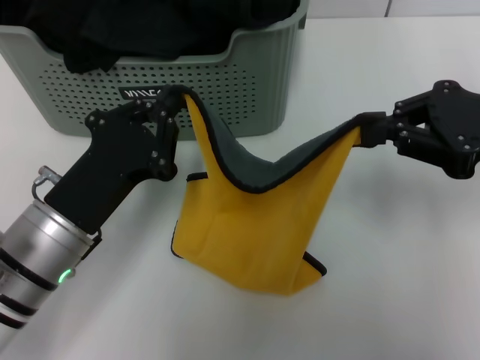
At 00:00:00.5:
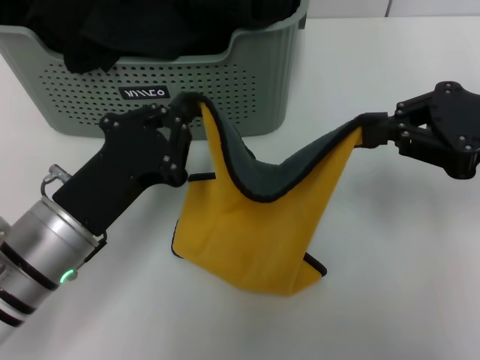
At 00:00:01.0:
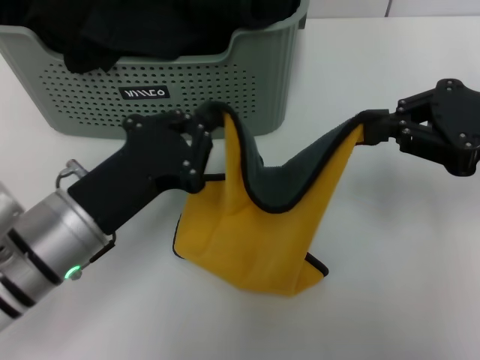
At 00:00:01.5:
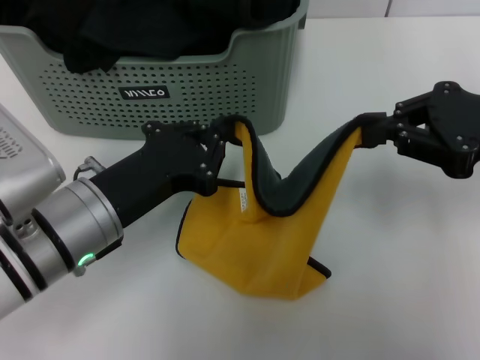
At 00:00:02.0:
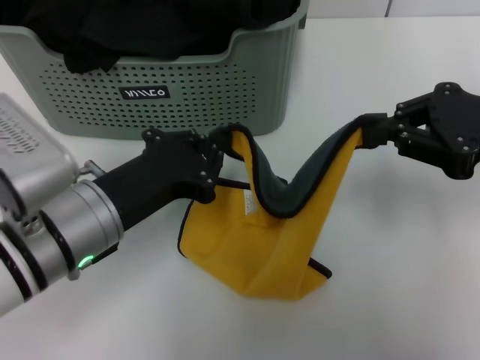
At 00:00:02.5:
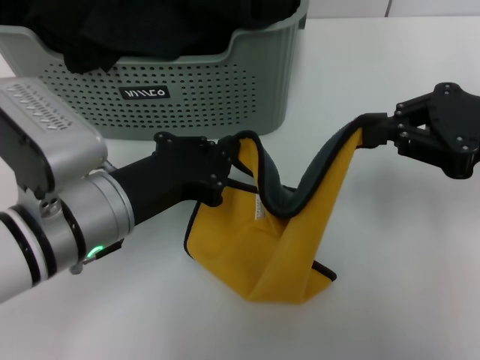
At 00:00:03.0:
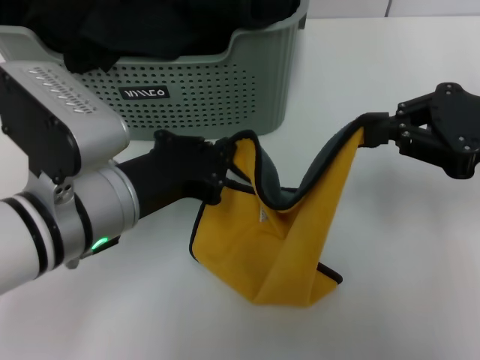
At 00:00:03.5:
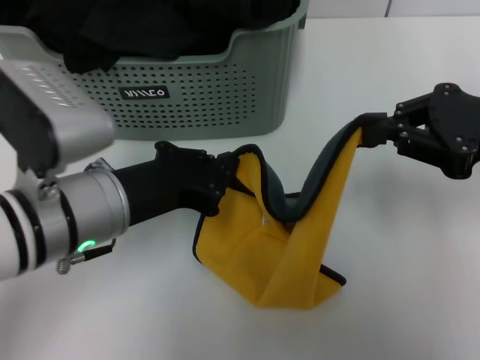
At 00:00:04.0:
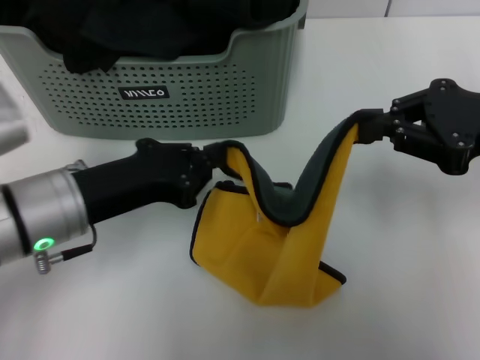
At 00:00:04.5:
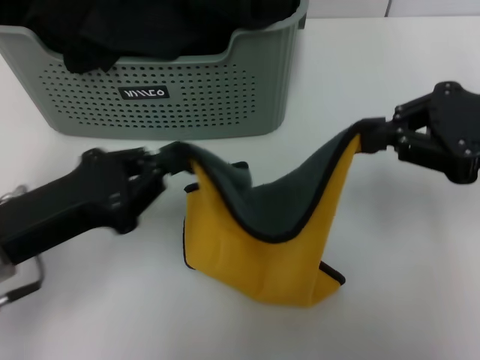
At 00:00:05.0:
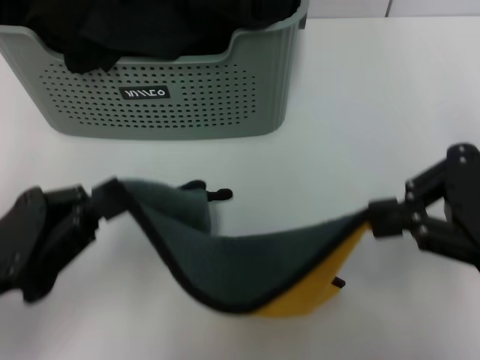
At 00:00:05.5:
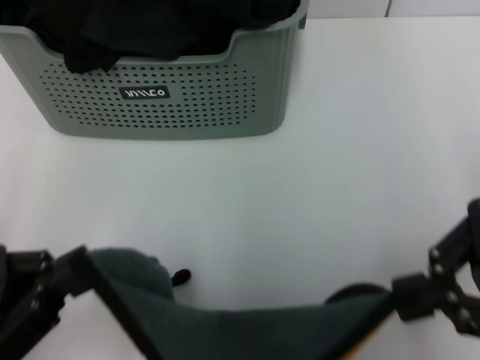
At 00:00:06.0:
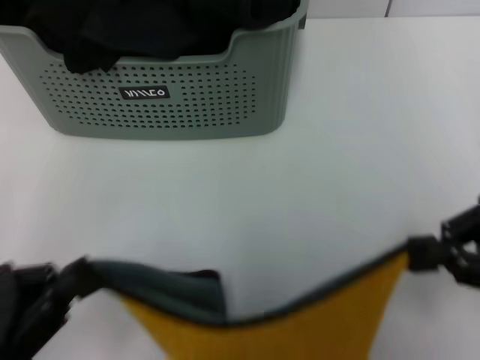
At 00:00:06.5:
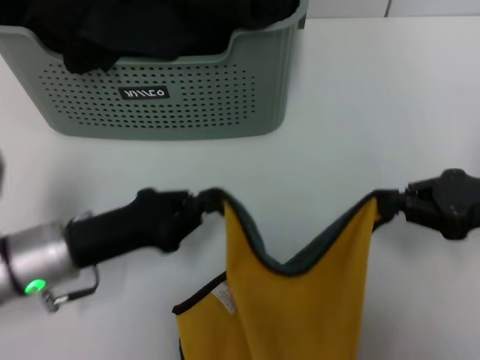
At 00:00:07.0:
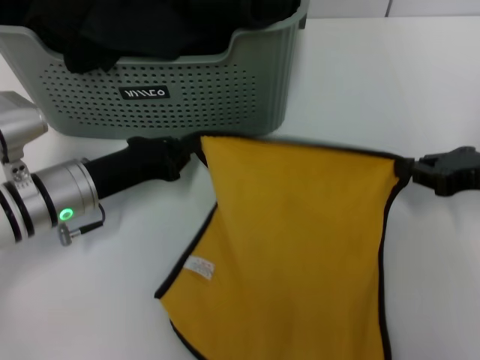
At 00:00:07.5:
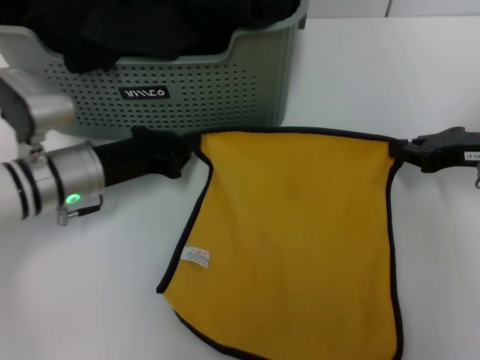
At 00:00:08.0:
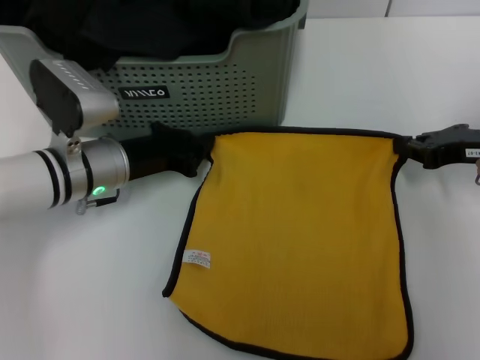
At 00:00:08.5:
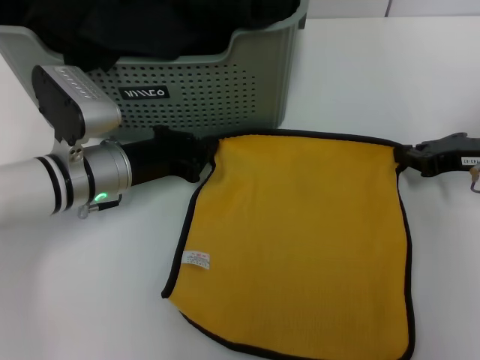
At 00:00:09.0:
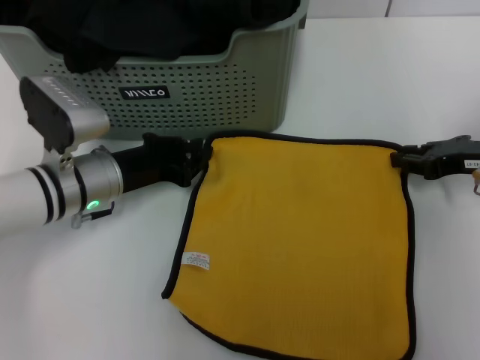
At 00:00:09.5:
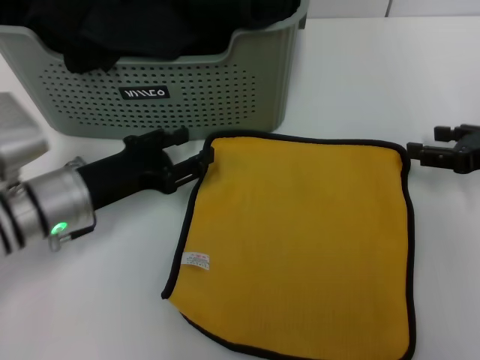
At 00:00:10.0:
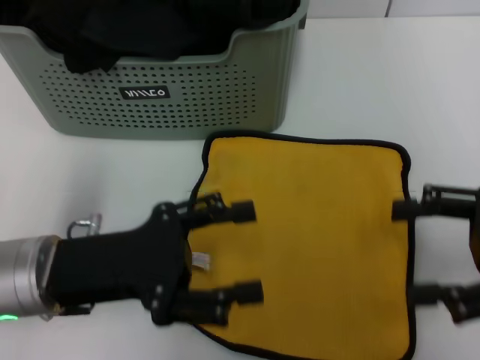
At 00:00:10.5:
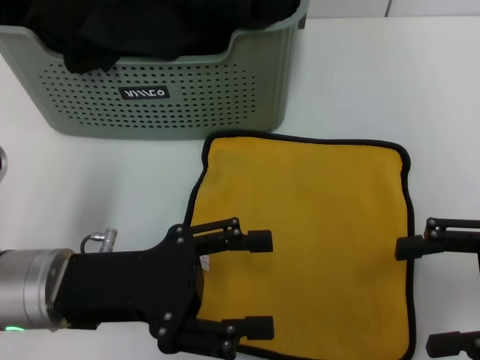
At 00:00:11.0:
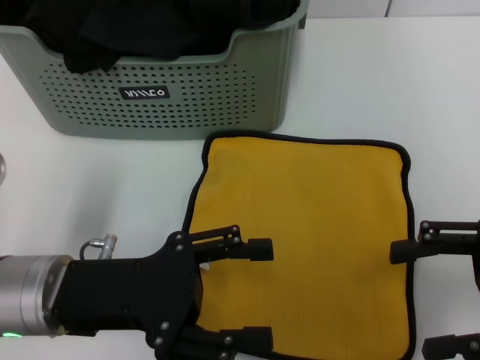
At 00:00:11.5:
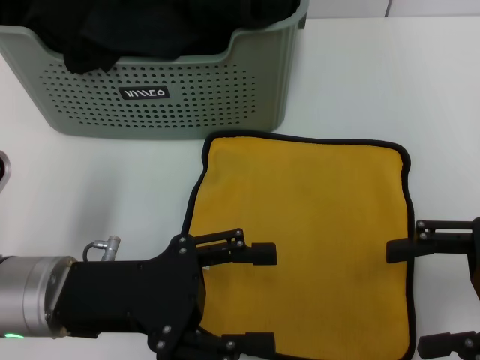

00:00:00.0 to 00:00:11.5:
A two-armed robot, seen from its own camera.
Task of the whole recording: pick up the towel from the storage box and lay it flat on the table.
Step, 00:00:00.0 to 00:00:09.0: Spread the towel flat with the right gripper.
00:00:02.0 to 00:00:04.0: The grippers stay close to where they were, moving slightly.
00:00:04.0 to 00:00:06.0: The left gripper is displaced backward and to the left by about 15 cm; the right gripper heads backward, covering about 10 cm.
00:00:06.0 to 00:00:07.5: The right gripper shifts about 15 cm forward and downward. The left gripper goes about 20 cm forward.
00:00:07.5 to 00:00:09.5: The left gripper opens; the right gripper opens.
00:00:09.5 to 00:00:11.5: Both grippers travel together backward, approximately 10 cm. The right gripper opens up. The left gripper opens up.
